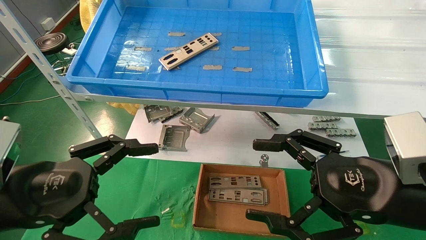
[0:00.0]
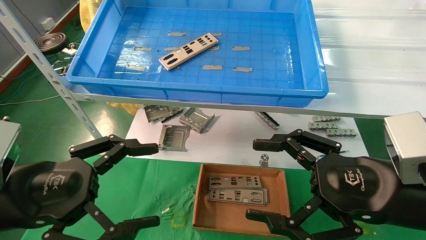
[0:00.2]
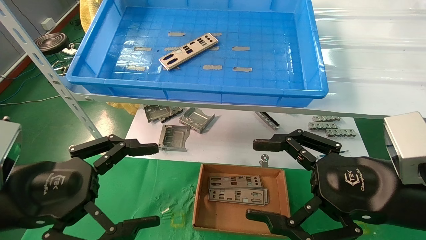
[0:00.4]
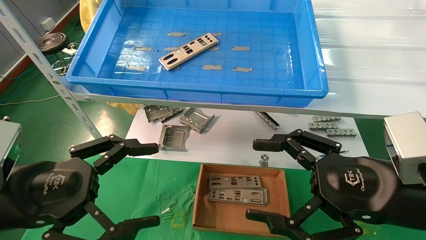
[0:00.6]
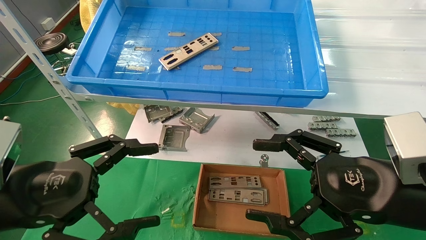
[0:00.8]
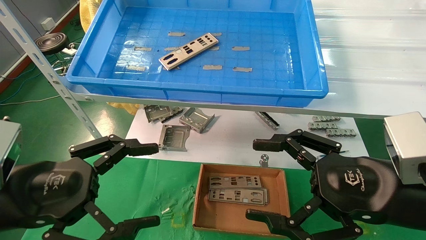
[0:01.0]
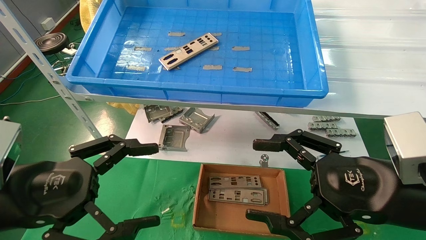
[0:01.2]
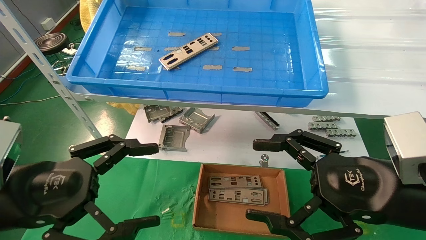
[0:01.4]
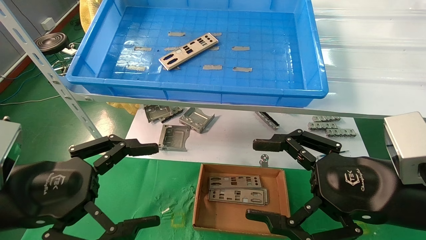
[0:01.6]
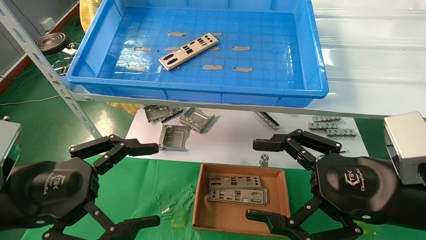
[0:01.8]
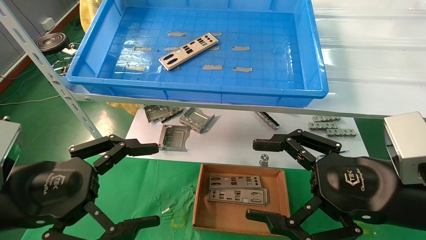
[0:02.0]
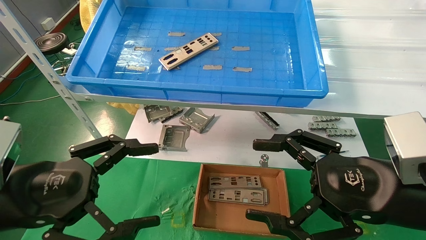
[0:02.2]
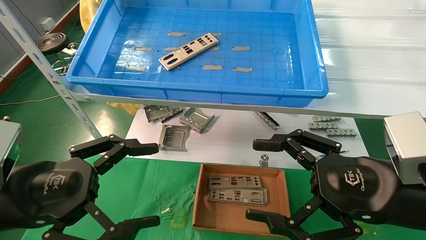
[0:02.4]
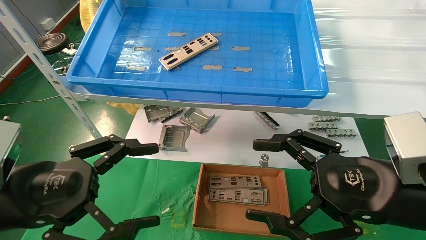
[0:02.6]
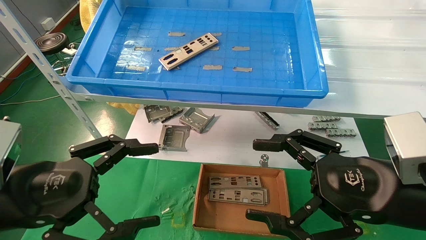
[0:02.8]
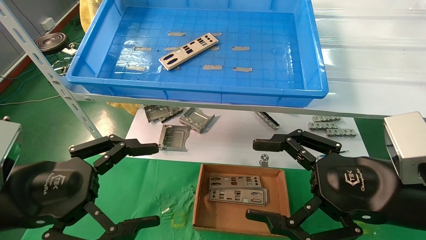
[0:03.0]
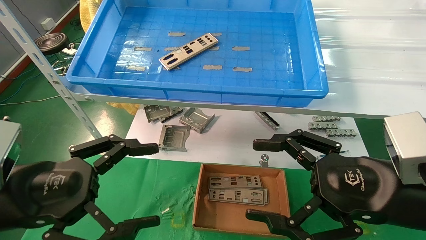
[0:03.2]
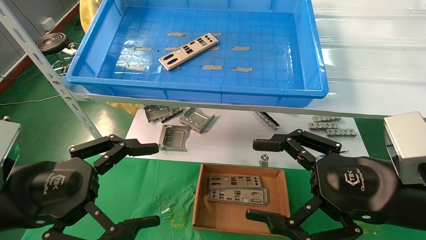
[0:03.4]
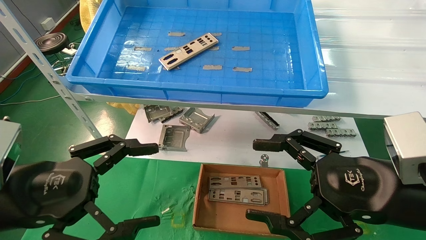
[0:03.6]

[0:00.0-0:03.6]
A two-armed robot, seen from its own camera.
Task of the whole recording: pick up the parts on the tray and put them in the cardboard box.
0:00.0 to 0:03.6: Both grippers stay put.

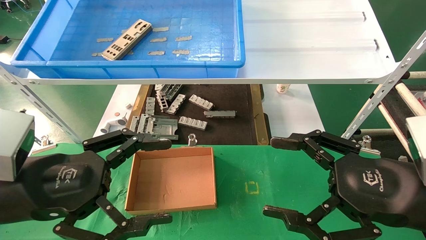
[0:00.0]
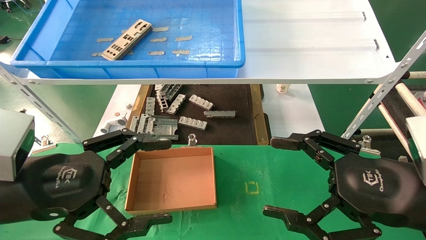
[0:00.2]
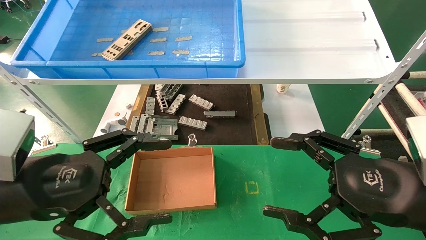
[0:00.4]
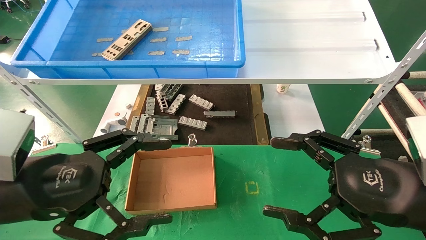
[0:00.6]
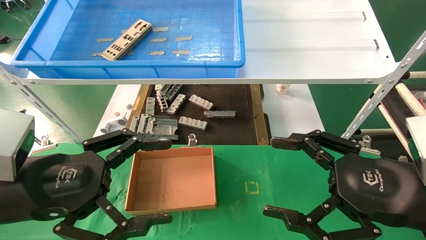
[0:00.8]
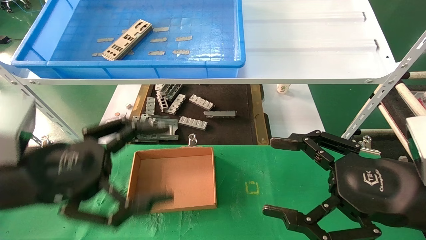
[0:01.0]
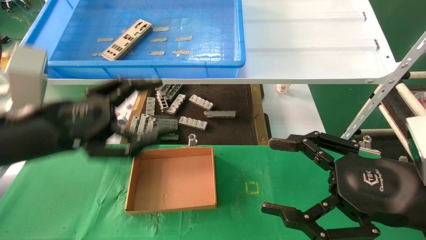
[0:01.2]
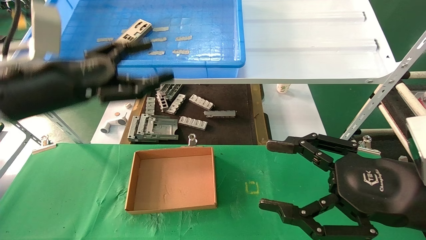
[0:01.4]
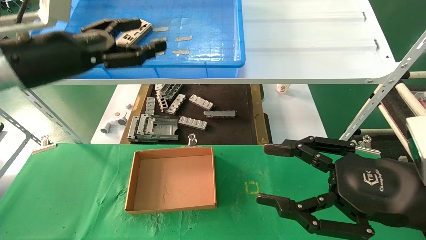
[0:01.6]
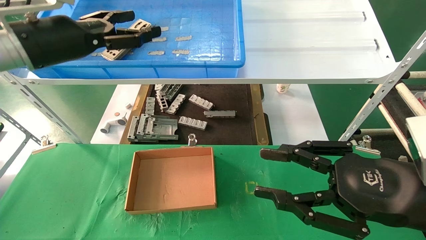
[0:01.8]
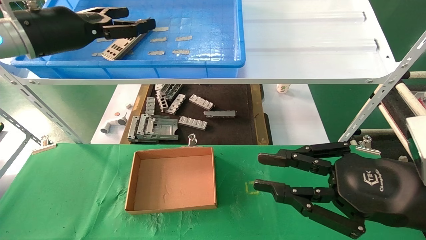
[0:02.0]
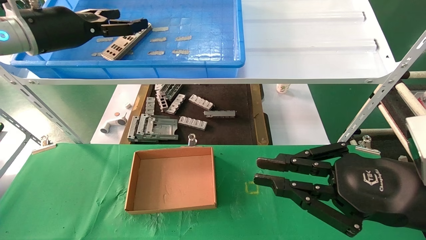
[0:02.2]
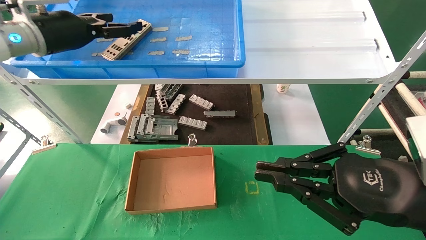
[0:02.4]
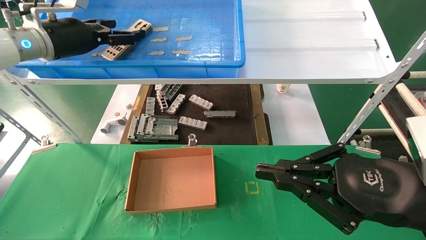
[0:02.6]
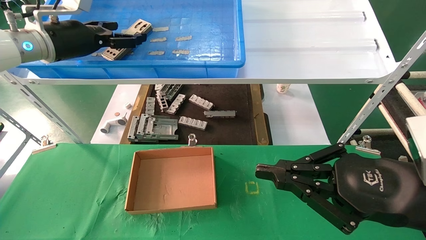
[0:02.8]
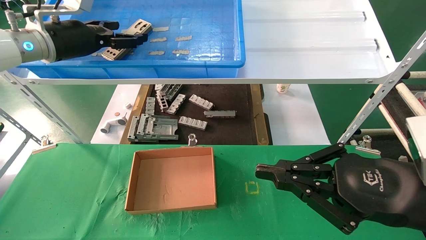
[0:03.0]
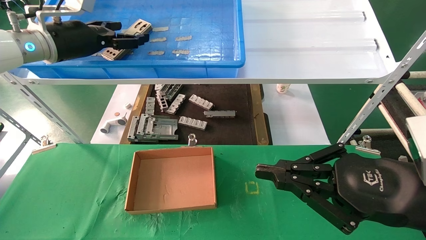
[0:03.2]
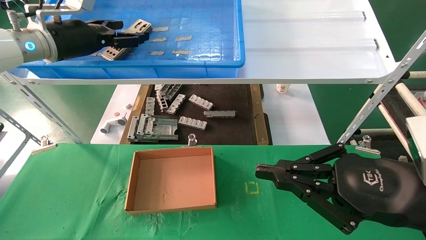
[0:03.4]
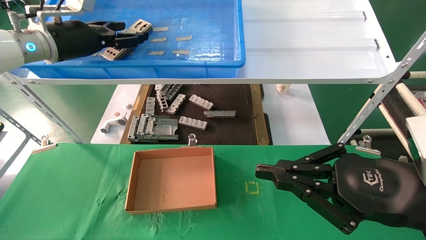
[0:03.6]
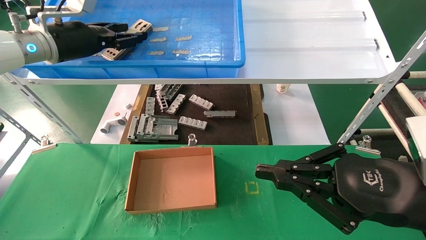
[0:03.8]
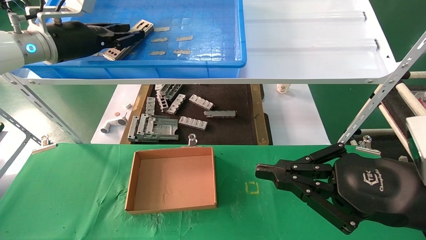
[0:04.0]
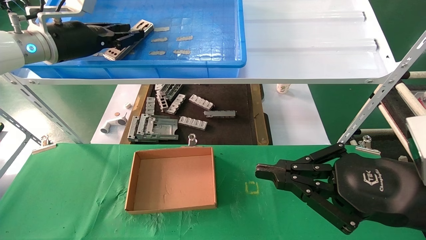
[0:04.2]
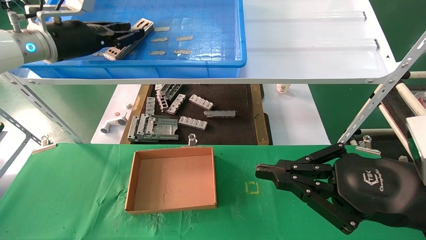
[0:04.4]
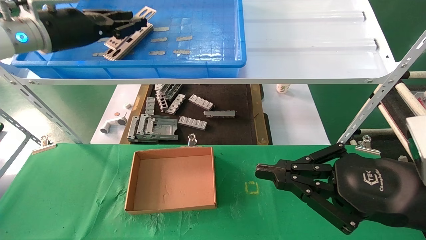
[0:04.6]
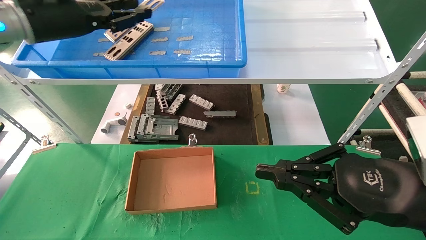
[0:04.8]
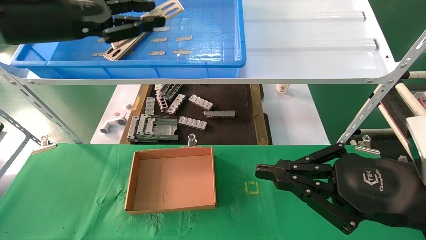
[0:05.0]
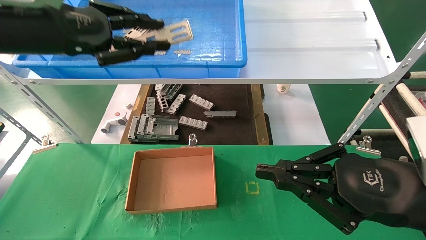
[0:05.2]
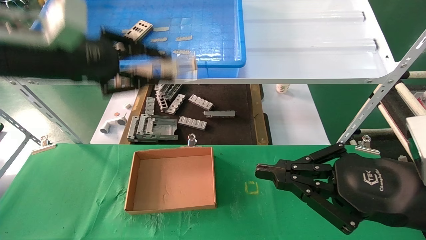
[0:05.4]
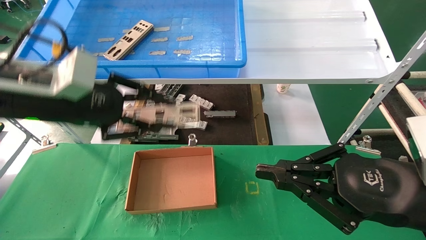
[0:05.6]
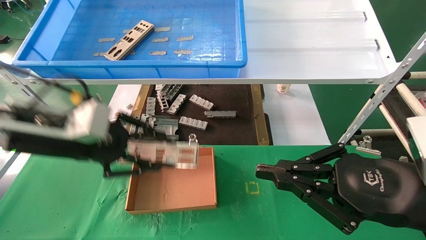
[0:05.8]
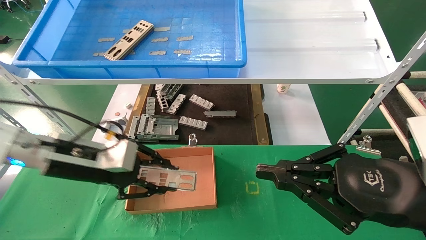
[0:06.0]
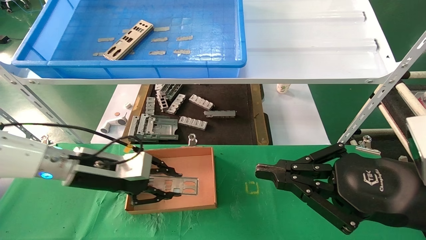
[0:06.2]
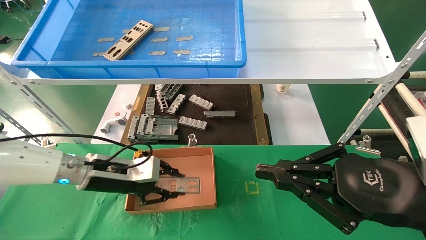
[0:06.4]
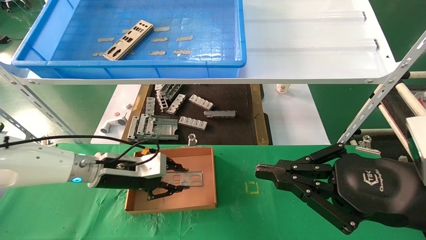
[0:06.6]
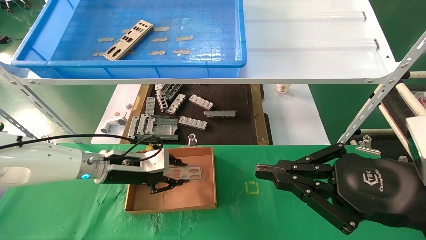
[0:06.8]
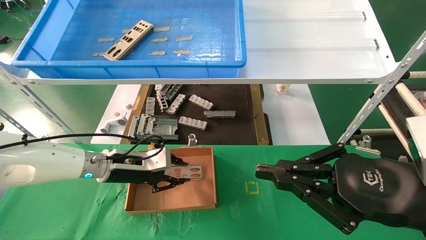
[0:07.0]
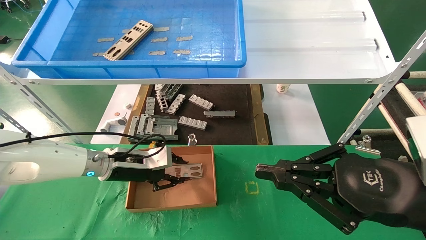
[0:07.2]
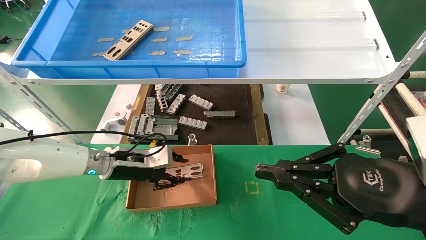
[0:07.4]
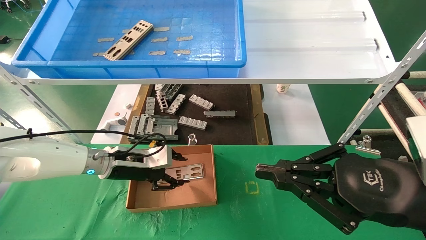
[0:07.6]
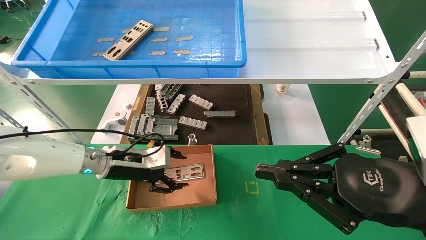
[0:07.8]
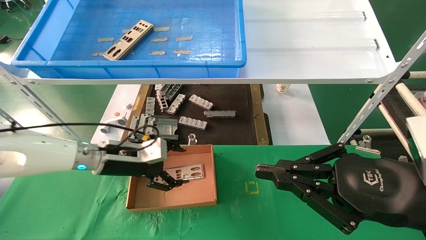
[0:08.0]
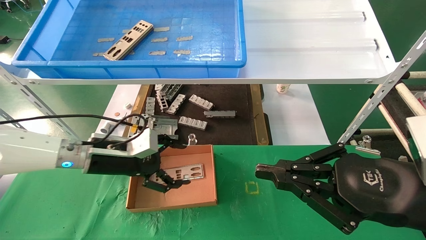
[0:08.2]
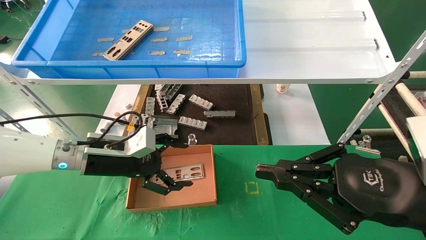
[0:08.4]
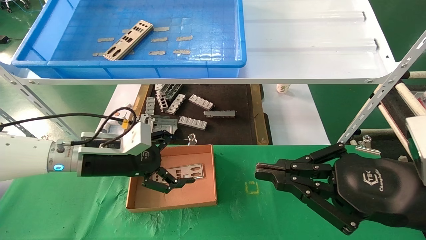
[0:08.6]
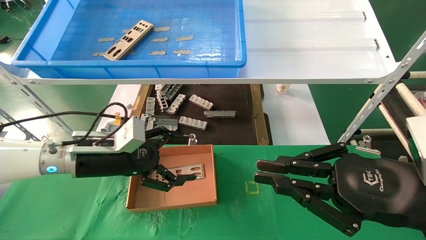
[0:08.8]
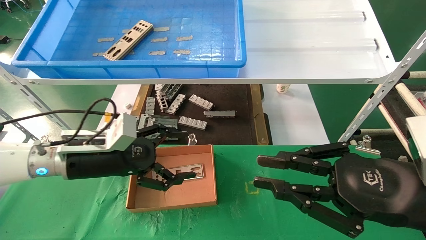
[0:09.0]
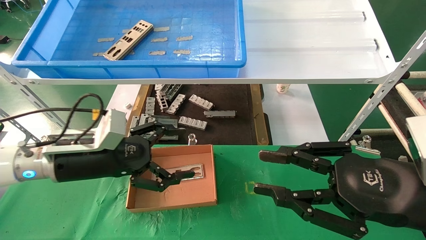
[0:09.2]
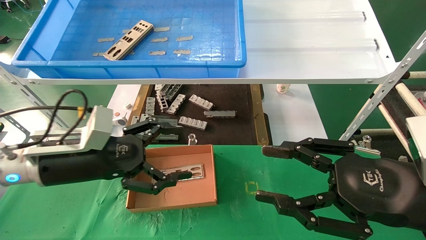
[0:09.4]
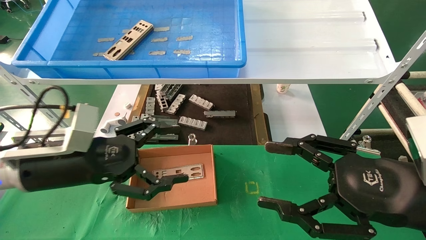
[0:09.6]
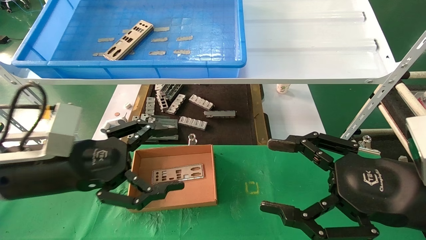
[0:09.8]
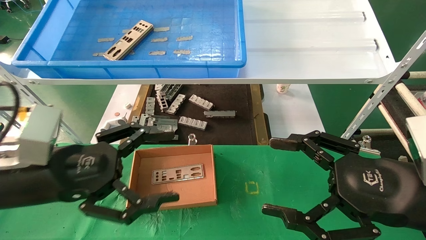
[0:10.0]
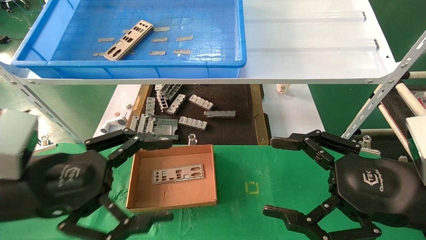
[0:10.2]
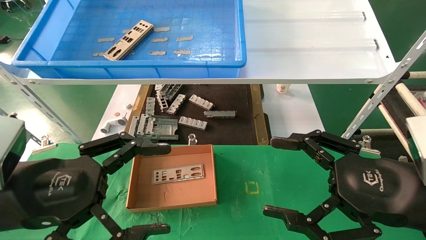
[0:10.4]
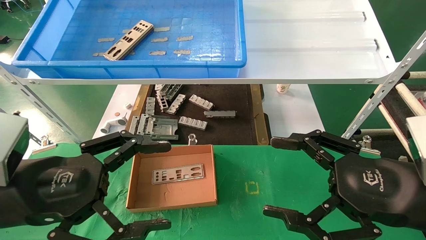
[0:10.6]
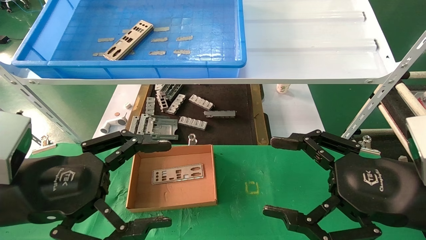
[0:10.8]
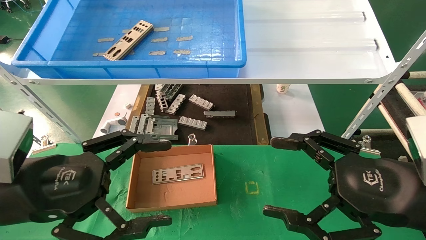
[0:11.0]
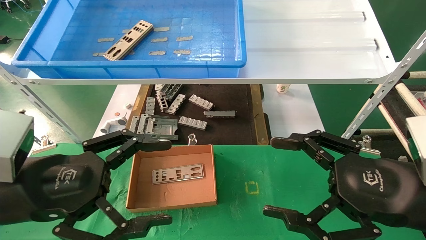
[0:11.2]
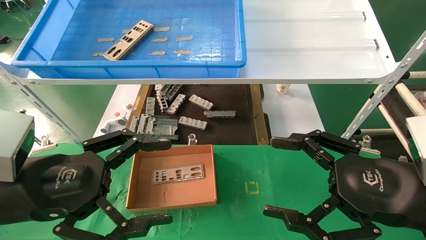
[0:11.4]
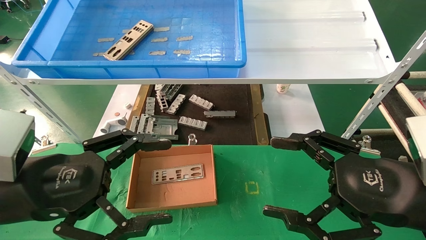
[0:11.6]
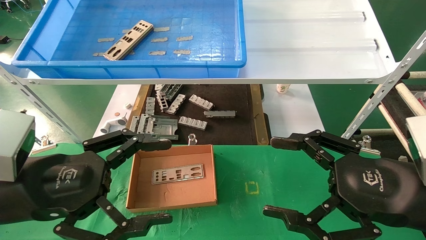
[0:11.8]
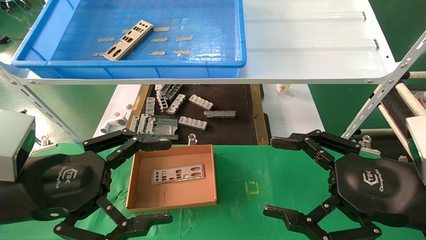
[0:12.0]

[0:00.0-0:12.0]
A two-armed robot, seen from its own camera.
Task of the whole recording: pick up the parts on the tray and put them in the cardboard box.
Step, 0:01.2 to 0:04.6: Pick up the IO bracket from the container box.
Step, 0:04.8 to 0:07.2: Place the IO bracket into the ingredient slot.
0:00.0 to 0:01.6: The left gripper heads forward and upward, covering approximately 20 cm.
0:01.6 to 0:03.0: The right gripper closes up. The left gripper goes roughly 10 cm forward.
0:03.0 to 0:04.4: The left gripper closes its fingers.
0:04.4 to 0:06.0: The left gripper travels downward and backward by about 20 cm.
0:06.0 to 0:07.6: The left gripper is displaced forward and downward by about 10 cm.
0:07.6 to 0:09.0: The left gripper goes some 10 cm backward and upward, and opens its fingers.
0:09.0 to 0:10.4: The left gripper moves backward, approximately 15 cm. Meanwhile the right gripper opens.
0:10.4 to 0:12.0: The two grippers keep their place.

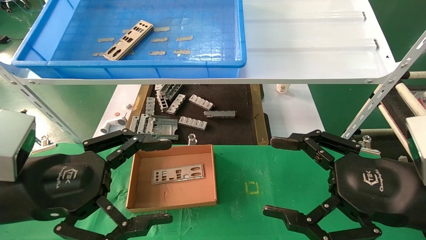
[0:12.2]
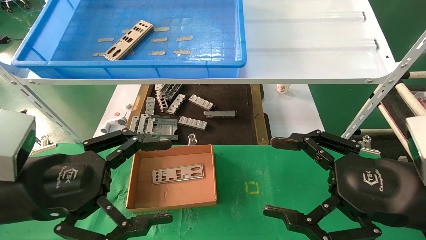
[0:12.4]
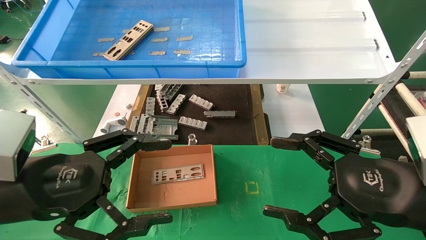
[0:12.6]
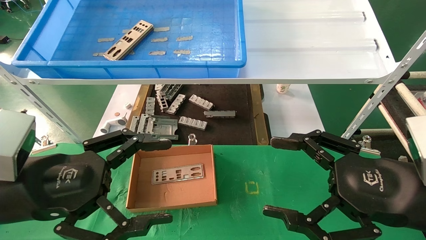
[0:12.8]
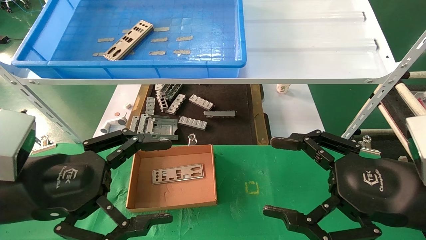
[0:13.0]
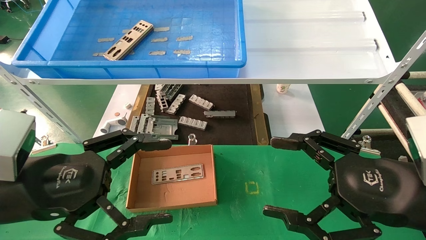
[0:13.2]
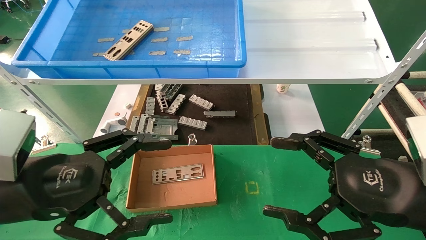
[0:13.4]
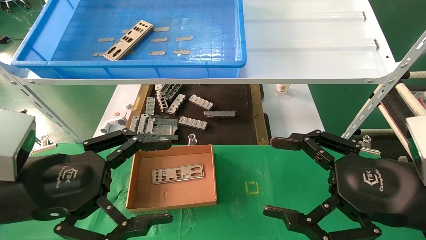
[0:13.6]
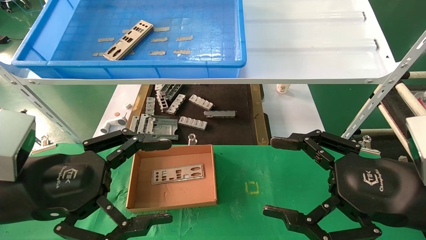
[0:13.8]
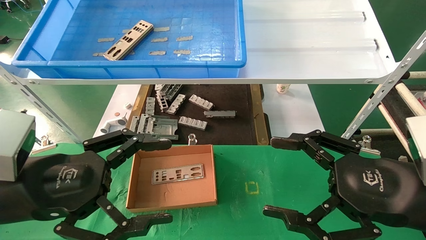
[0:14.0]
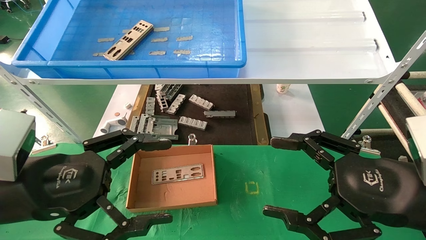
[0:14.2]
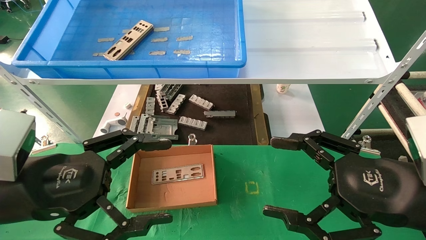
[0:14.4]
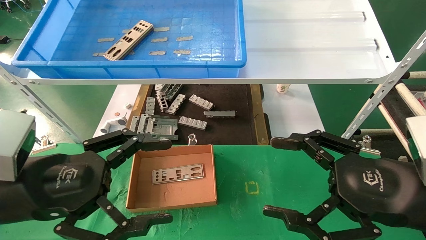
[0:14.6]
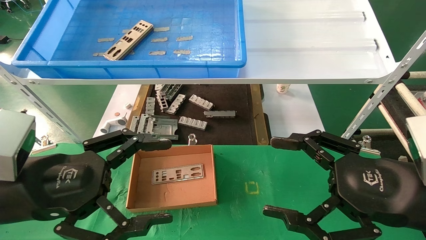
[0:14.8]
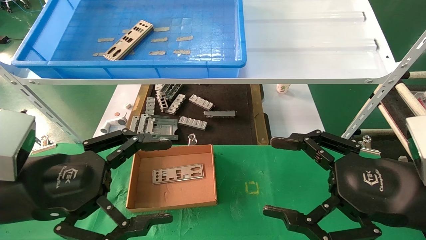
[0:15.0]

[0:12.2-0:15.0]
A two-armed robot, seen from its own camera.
Task of the whole recording: pick up the parts on the tray and put them in the cardboard box.
0:12.2 to 0:15.0: Both grippers stay put.
